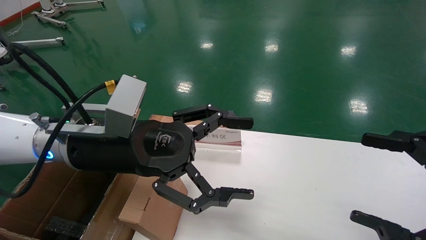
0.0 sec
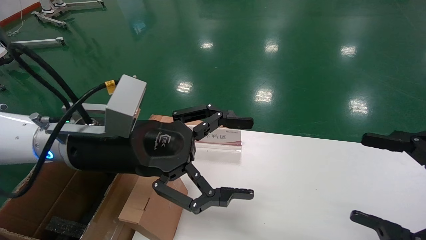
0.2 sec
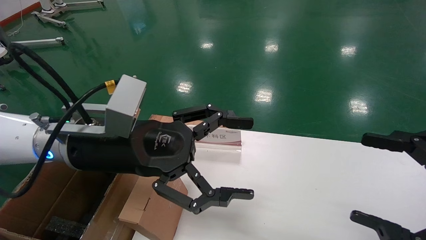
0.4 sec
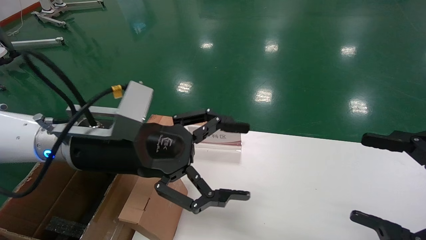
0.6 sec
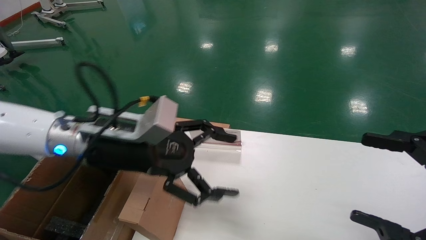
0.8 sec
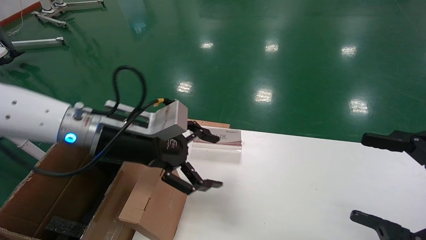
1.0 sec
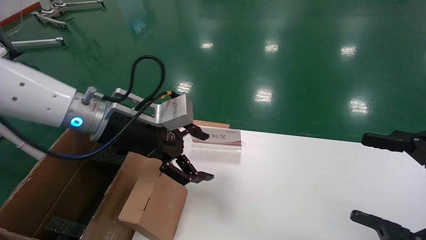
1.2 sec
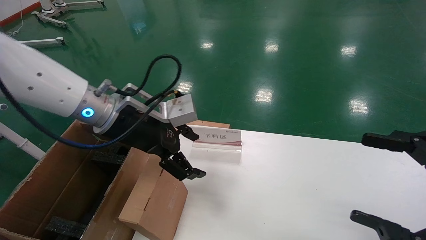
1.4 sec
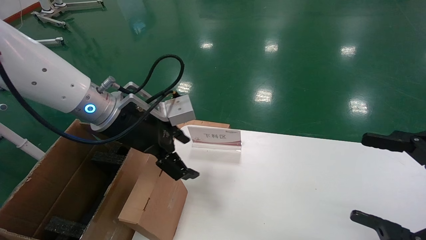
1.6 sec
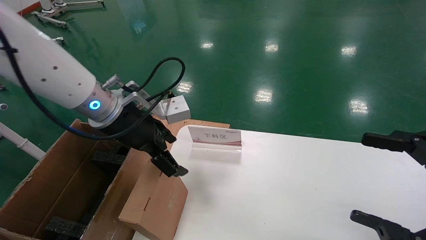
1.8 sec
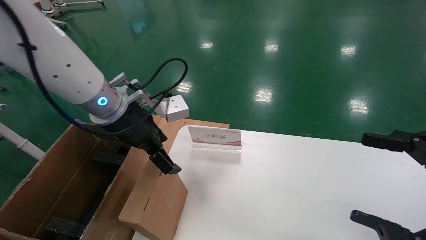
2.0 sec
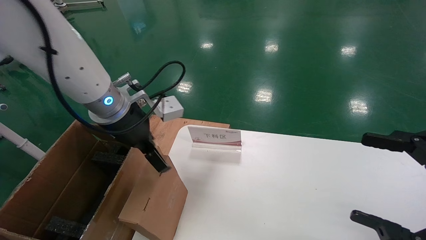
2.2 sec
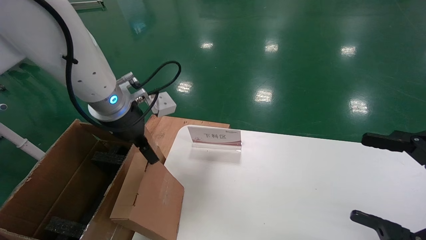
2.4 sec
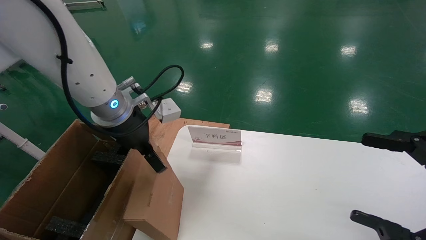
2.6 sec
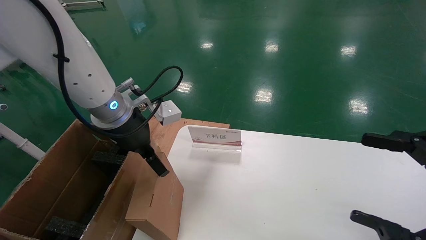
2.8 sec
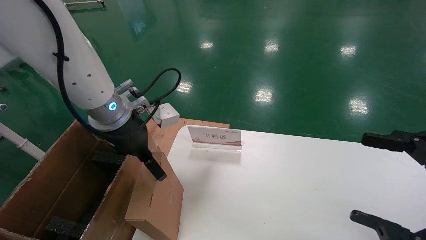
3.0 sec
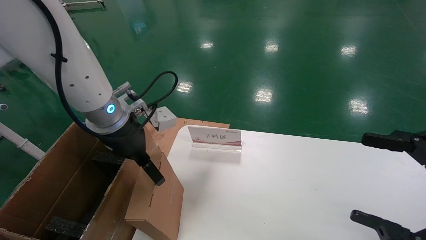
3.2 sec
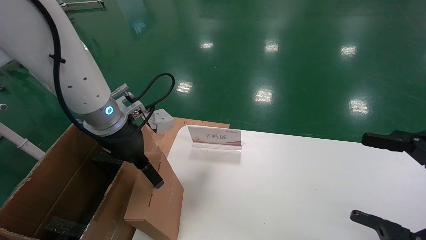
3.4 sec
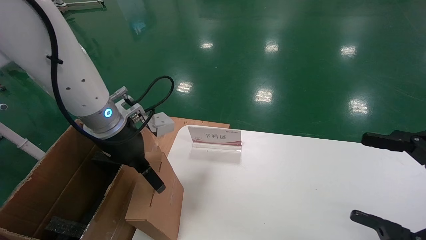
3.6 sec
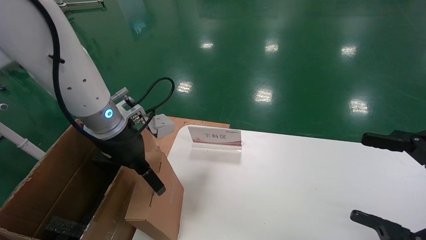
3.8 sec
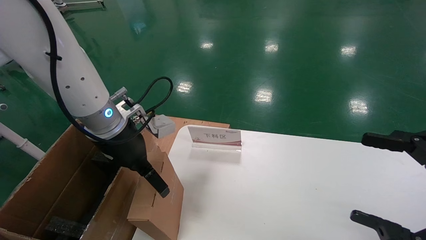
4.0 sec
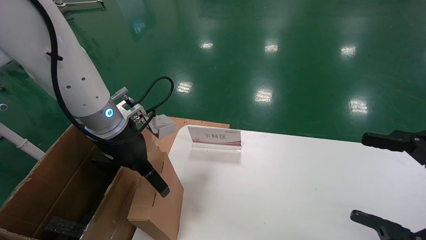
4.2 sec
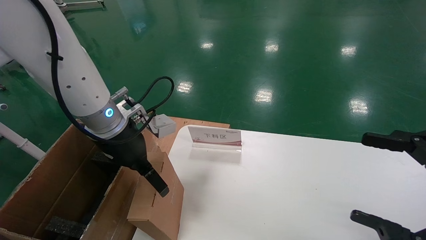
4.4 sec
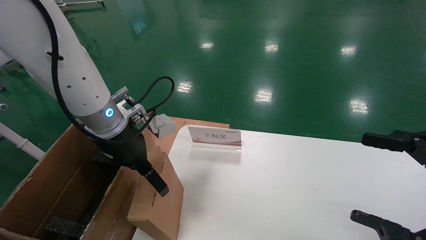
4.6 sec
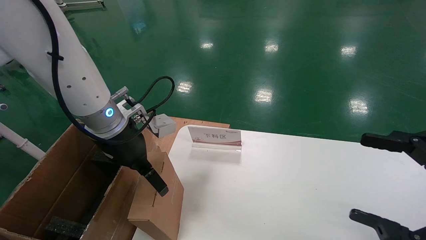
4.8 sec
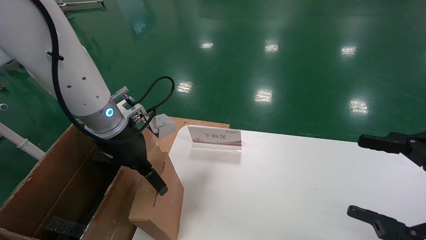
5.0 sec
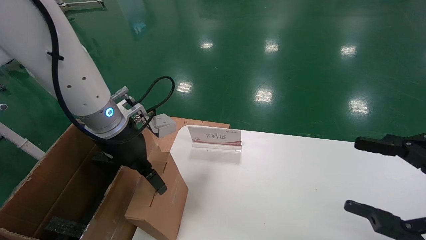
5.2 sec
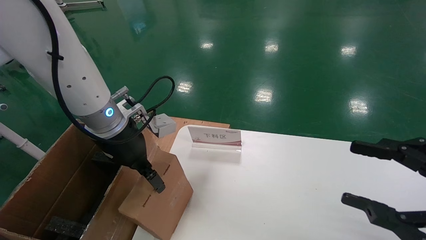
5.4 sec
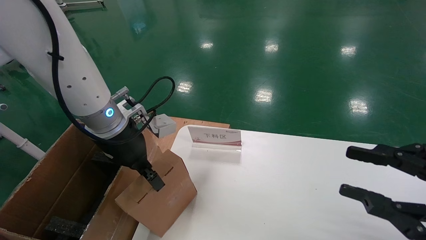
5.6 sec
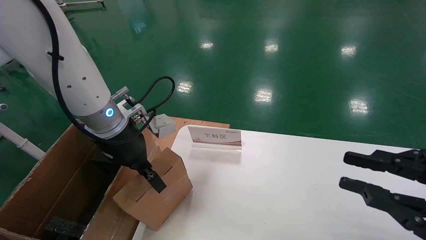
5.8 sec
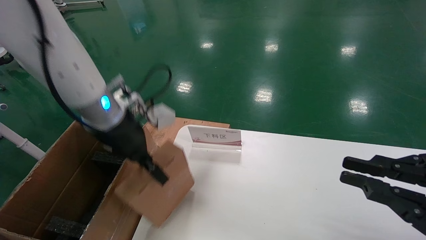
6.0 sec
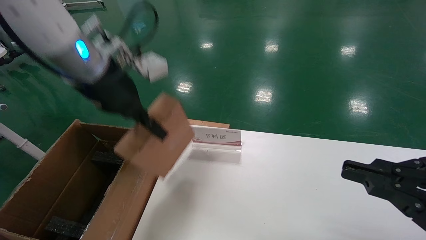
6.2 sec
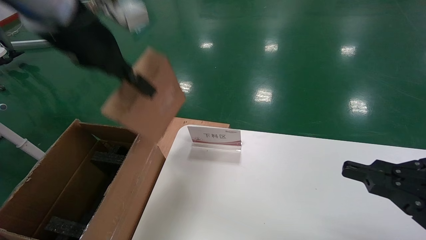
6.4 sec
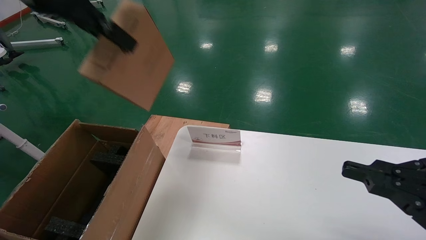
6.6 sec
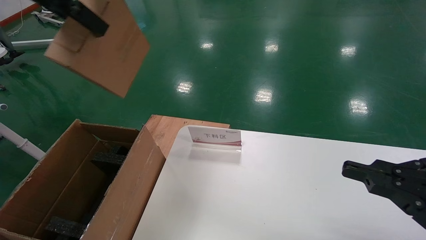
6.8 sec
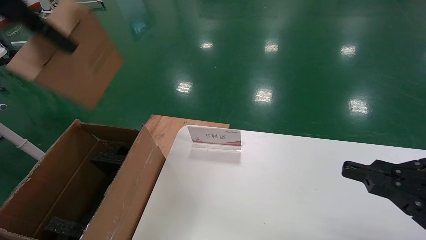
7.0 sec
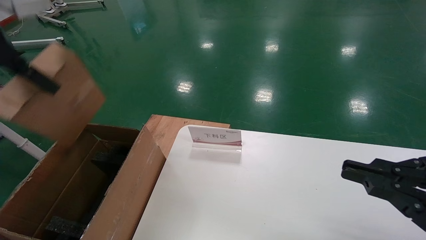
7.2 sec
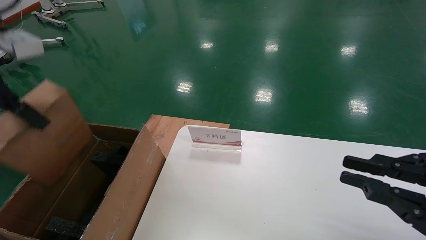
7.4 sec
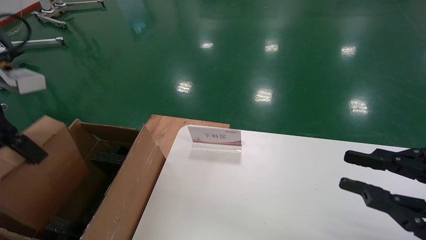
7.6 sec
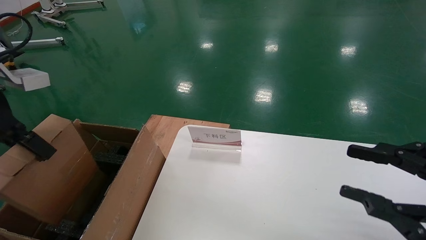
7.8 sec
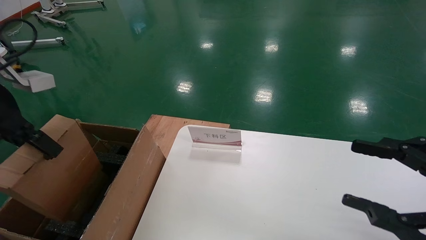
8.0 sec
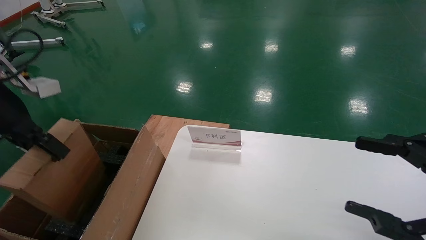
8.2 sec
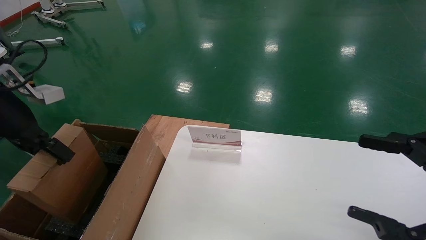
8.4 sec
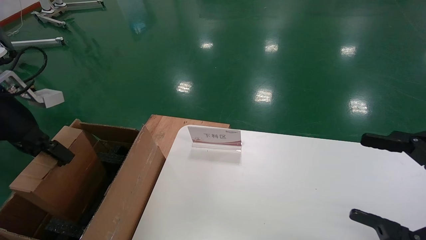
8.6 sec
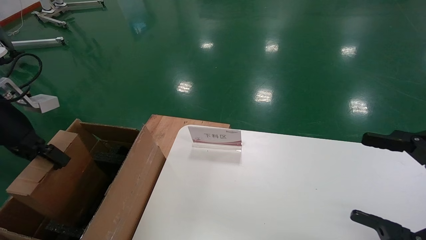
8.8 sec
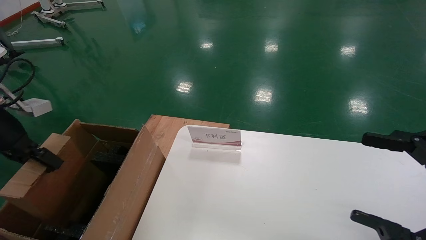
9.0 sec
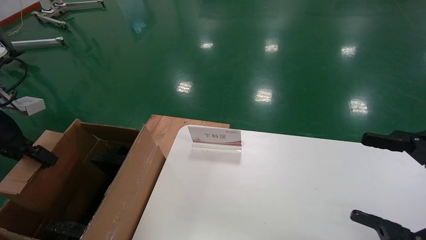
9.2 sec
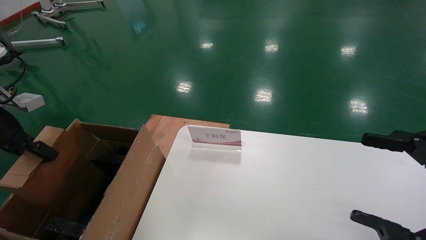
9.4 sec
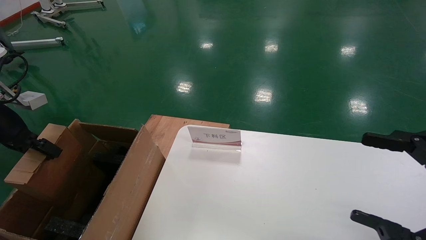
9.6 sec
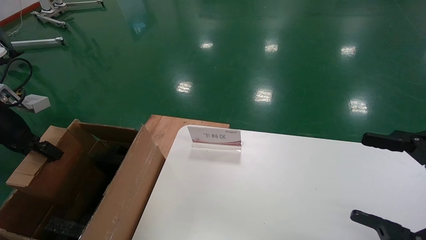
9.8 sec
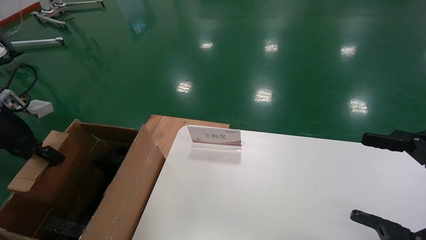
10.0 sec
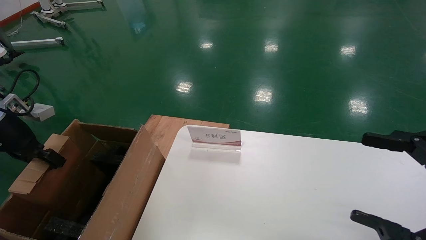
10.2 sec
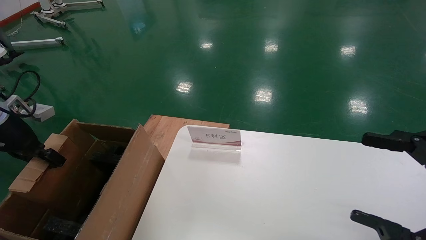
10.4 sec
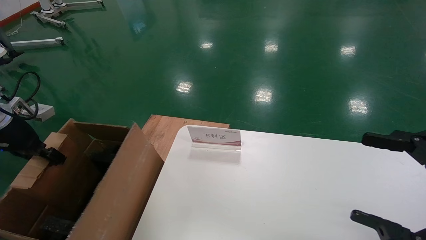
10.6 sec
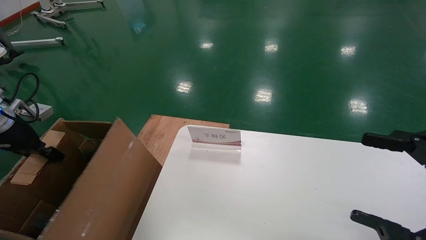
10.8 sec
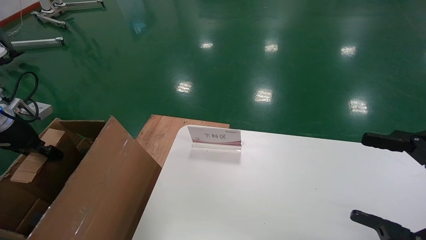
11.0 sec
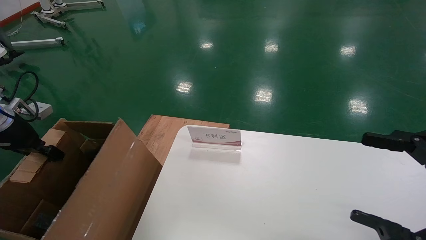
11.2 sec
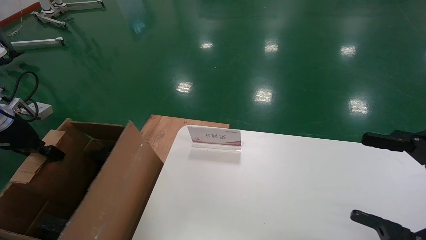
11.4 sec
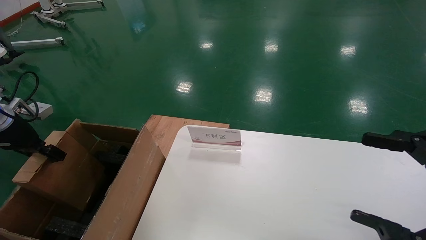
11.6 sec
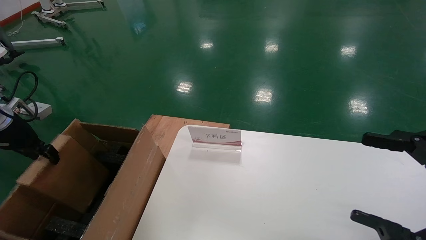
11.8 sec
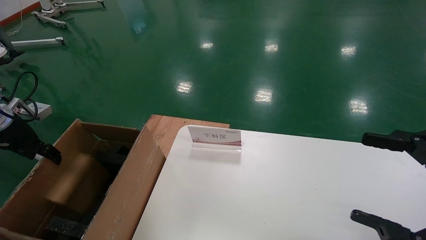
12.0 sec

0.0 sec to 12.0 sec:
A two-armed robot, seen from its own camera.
Task of the whole recording: pick up the small cardboard box and load it into the large cardboard box.
Step, 0.8 sec to 5.6 sec: Pick up the mouse and power cord box.
0.0 sec to 1.6 sec: The left gripper is displaced forward by roughly 5 cm.
3.0 sec to 4.4 sec: The grippers move only a little.
4.4 sec to 6.0 sec: The right gripper closes, while the left gripper goes about 5 cm upward, and closes its fingers.
6.0 sec to 7.6 sec: The left gripper travels to the left, backward and upward by some 20 cm.
7.6 sec to 9.0 sec: The right gripper opens up, while the left gripper moves downward and to the left, about 15 cm.
9.0 sec to 10.4 sec: The left gripper changes place by approximately 5 cm.
10.4 sec to 12.0 sec: The left gripper opens up.

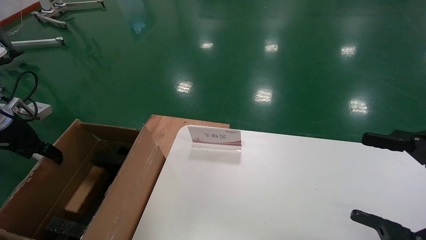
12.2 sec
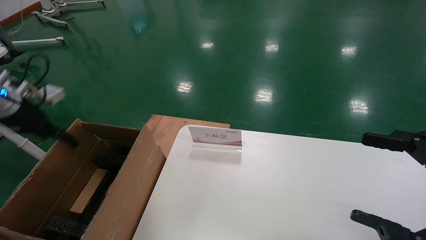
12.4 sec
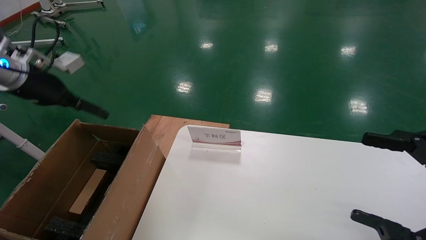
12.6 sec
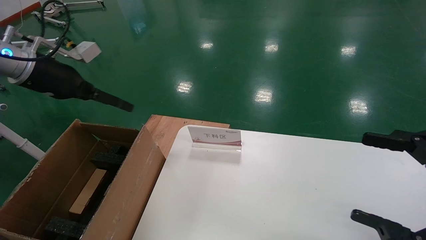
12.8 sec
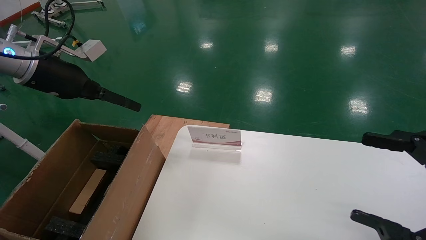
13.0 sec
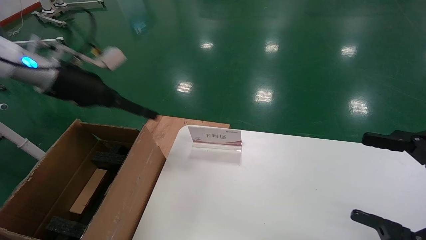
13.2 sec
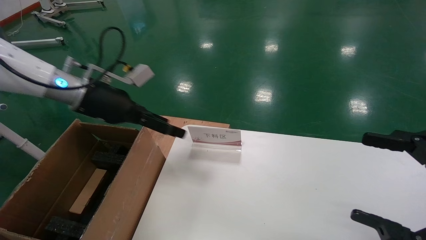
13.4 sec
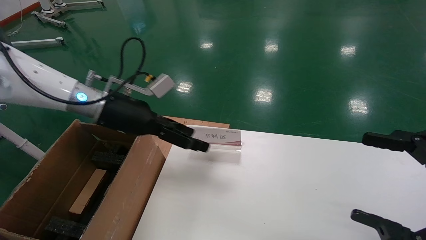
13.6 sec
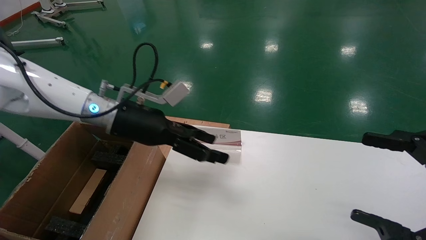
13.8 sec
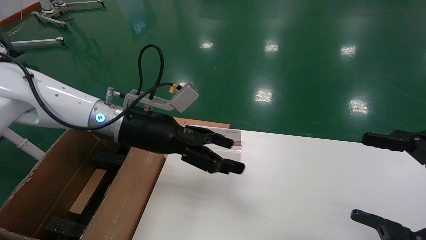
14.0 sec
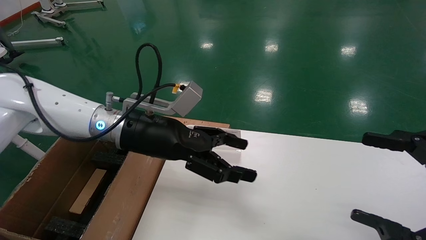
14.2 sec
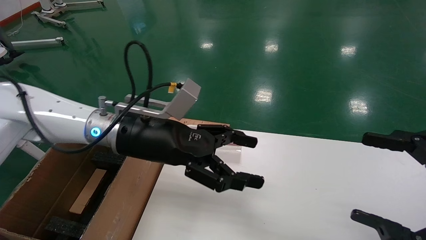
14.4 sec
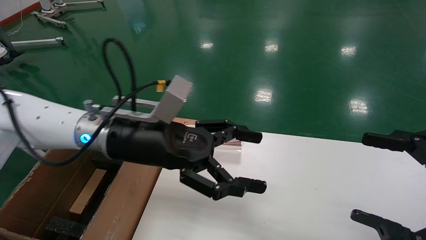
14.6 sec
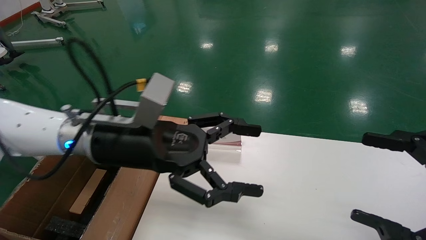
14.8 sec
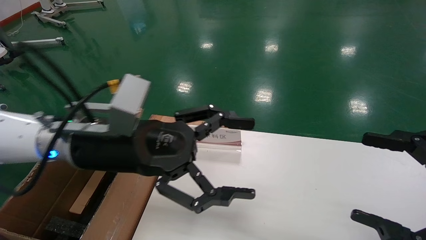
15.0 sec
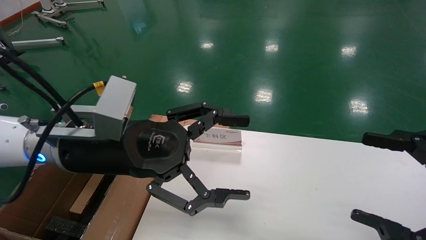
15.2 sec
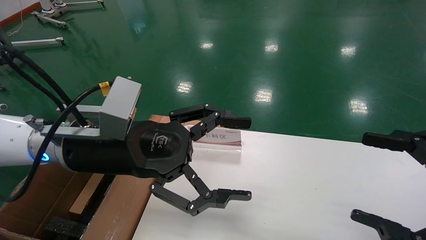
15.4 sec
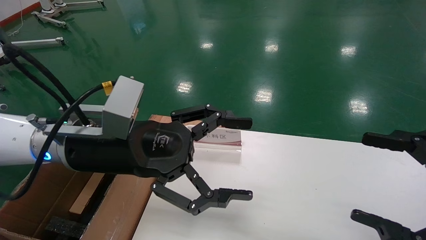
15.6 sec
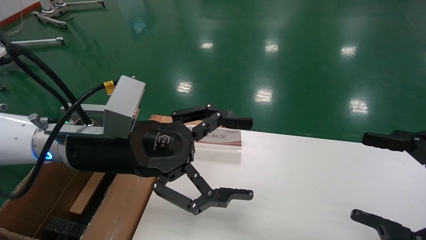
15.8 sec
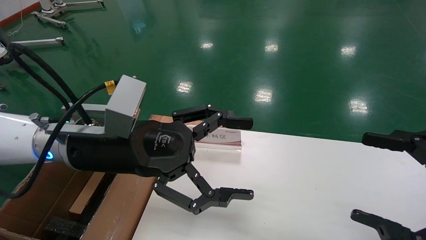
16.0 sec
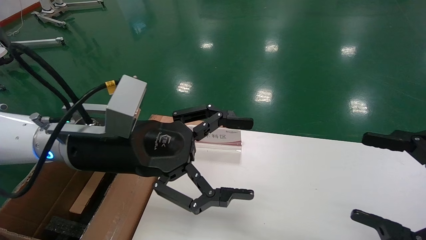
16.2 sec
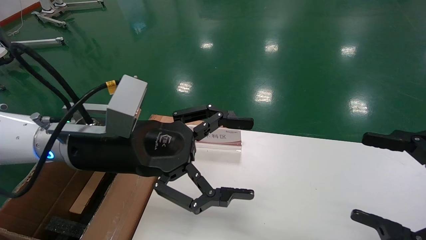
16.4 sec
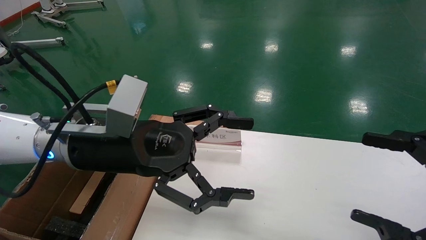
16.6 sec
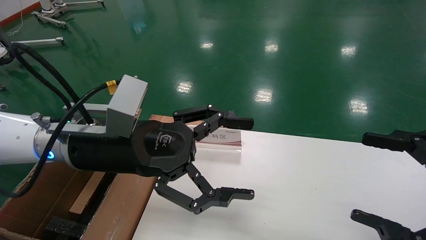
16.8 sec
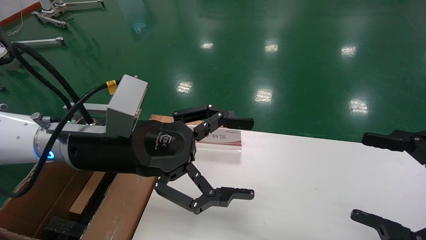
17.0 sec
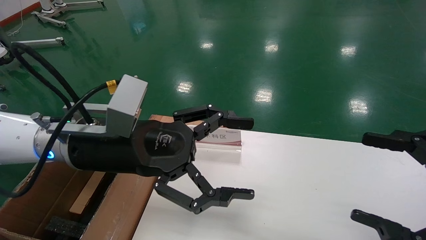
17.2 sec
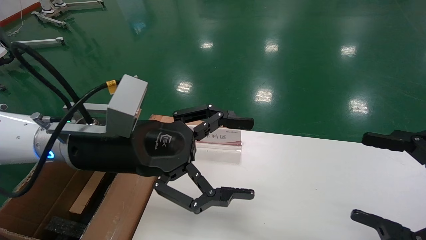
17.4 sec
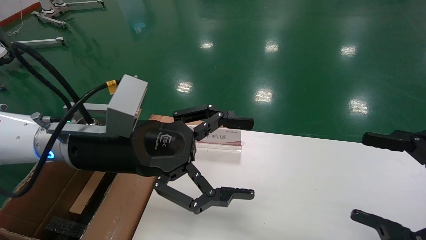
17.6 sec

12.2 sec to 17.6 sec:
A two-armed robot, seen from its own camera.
Task of the whole recording: pick up the small cardboard box and load it into the large cardboard box.
12.2 sec to 13.6 sec: The left gripper is displaced to the right by about 25 cm.
13.6 sec to 15.0 sec: The left gripper goes some 15 cm backward and to the right.
15.0 sec to 17.6 sec: The two grippers keep their place.
